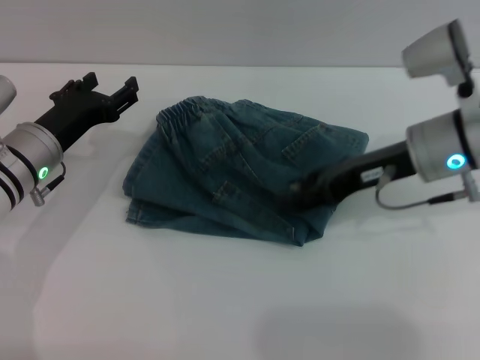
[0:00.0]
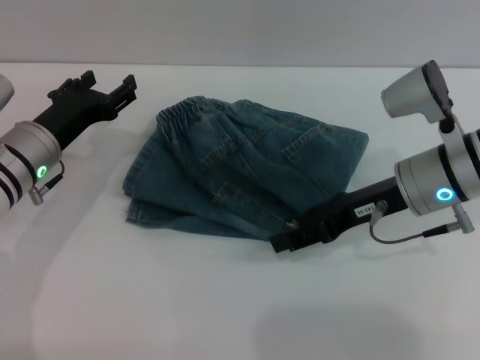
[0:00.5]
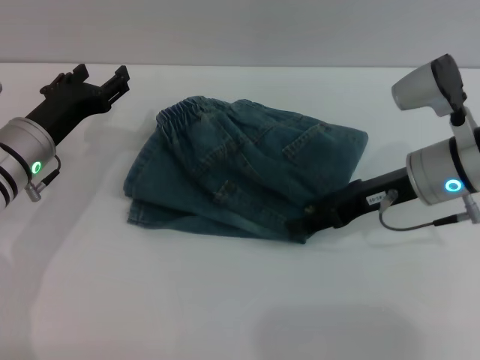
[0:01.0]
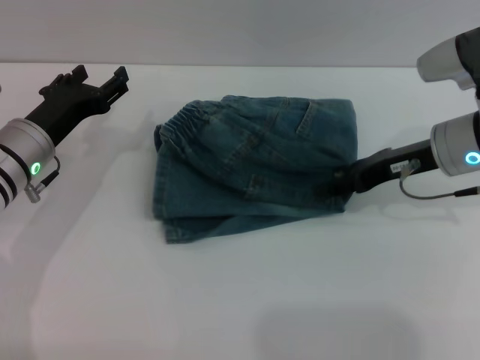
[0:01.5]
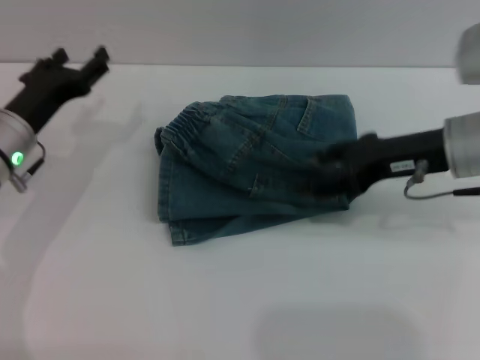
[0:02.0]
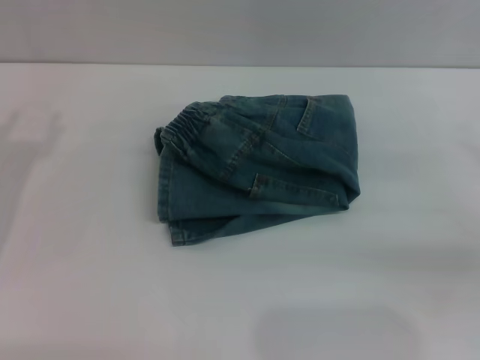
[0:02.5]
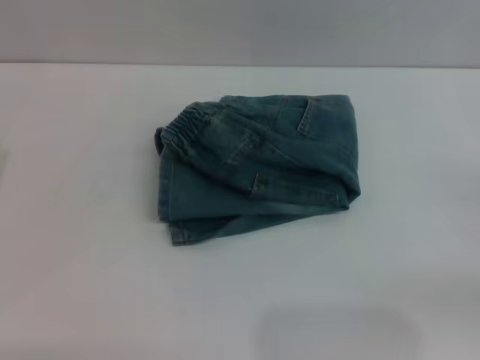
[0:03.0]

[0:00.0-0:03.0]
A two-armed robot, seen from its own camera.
Step, 0:00.0 to 0:02.0: Place the folded trousers onto the center area with the right grippers.
0:00.0 to 0:01.5: The grippers stay close to where they were, moving slightly.
0:01.5 to 0:03.0: The left gripper travels backward and to the left by roughly 15 cm. The right gripper moves to the right and backward, about 25 cm.

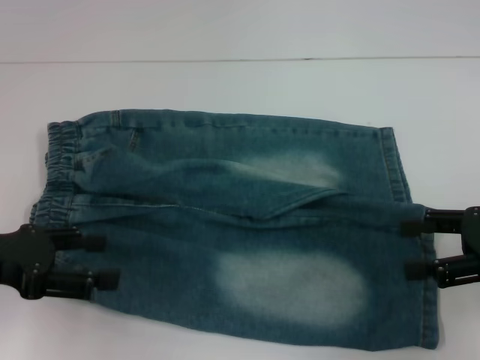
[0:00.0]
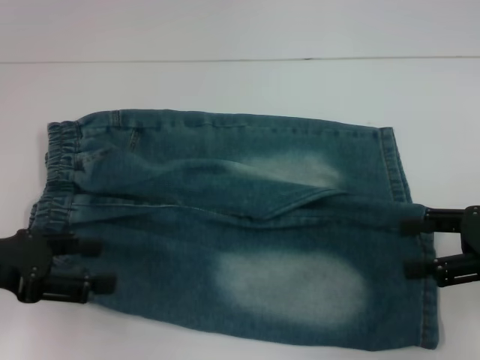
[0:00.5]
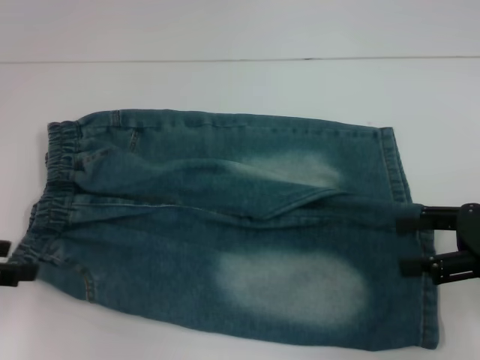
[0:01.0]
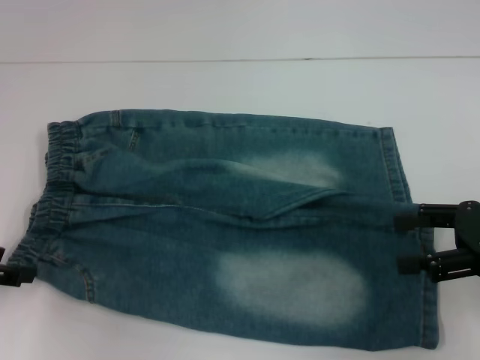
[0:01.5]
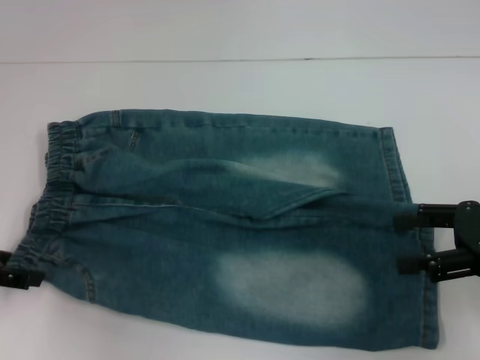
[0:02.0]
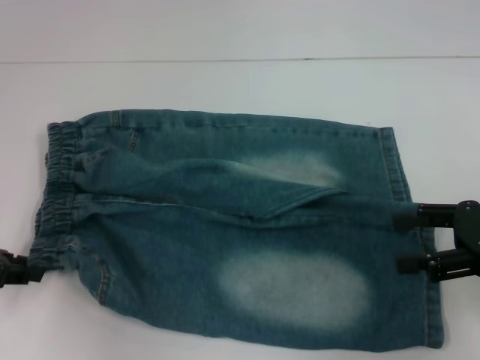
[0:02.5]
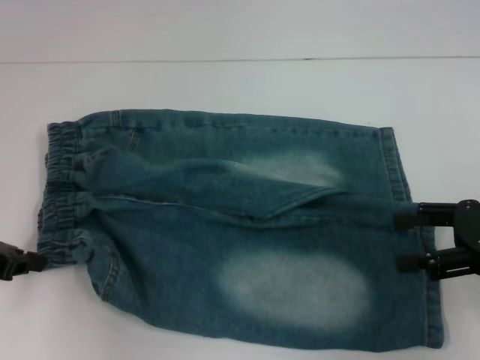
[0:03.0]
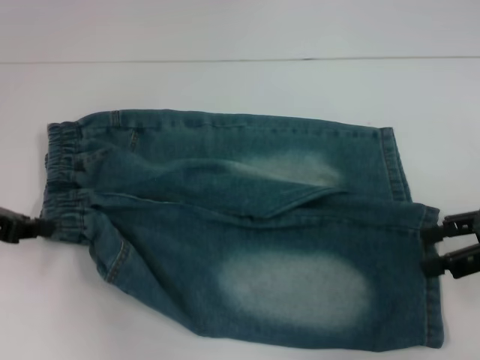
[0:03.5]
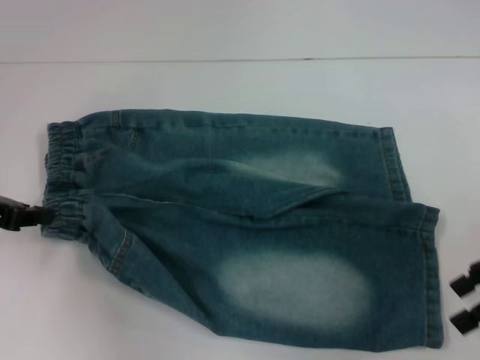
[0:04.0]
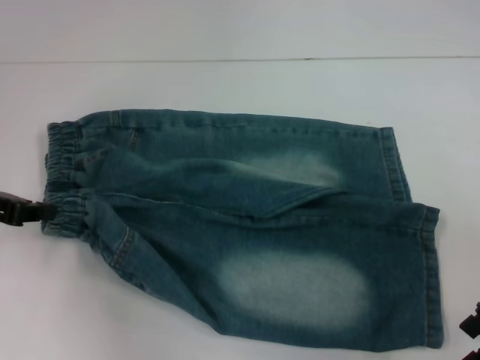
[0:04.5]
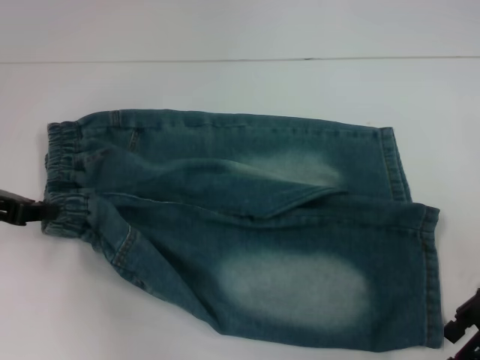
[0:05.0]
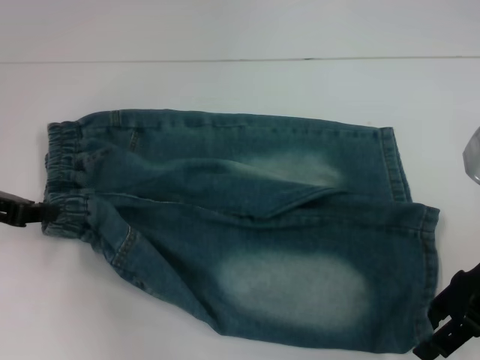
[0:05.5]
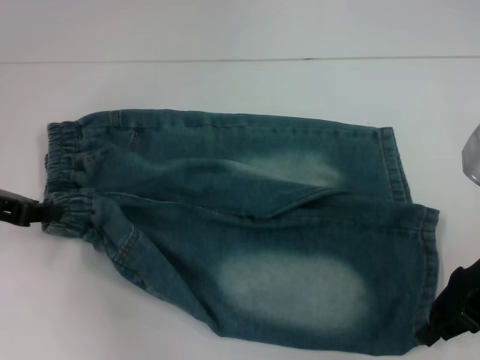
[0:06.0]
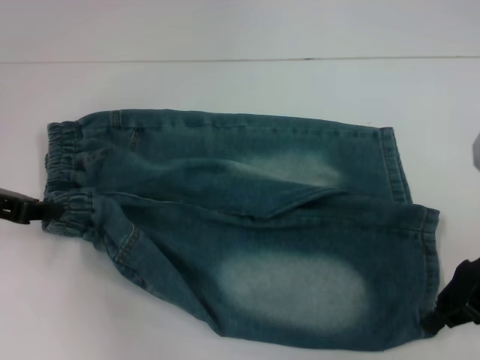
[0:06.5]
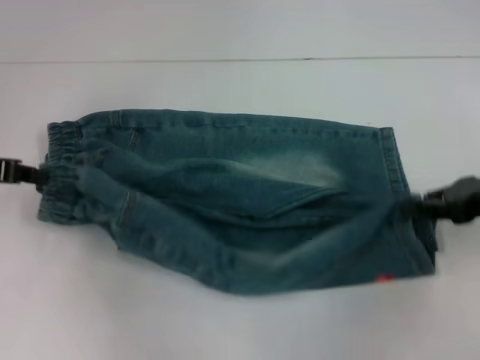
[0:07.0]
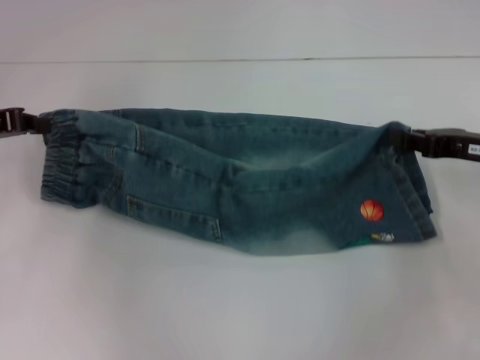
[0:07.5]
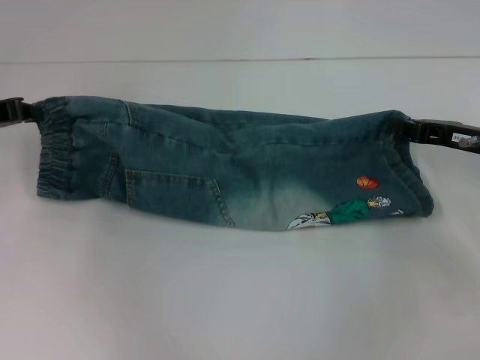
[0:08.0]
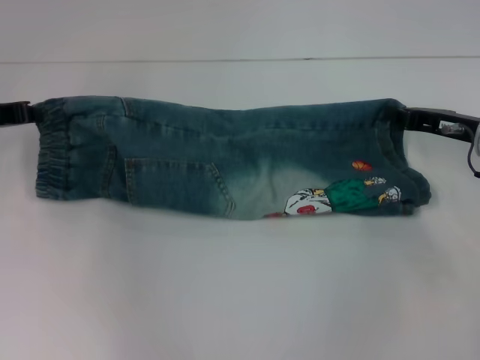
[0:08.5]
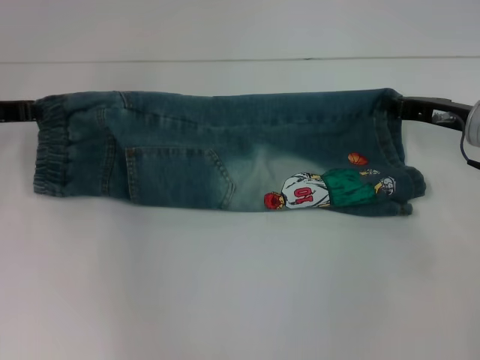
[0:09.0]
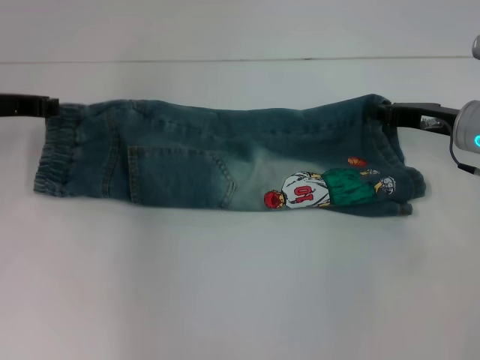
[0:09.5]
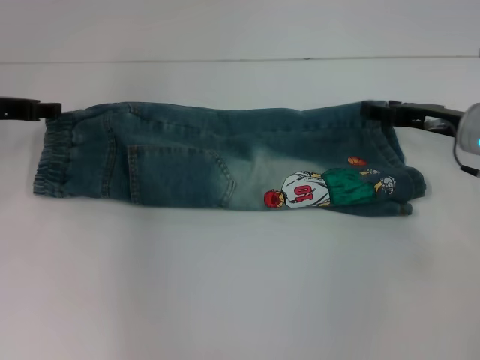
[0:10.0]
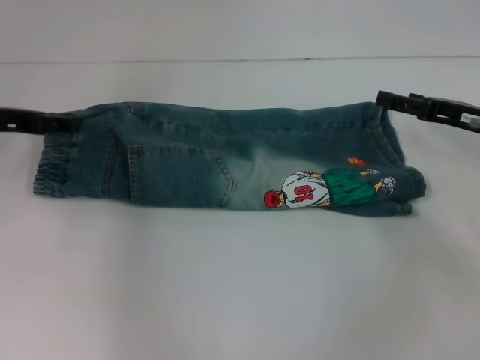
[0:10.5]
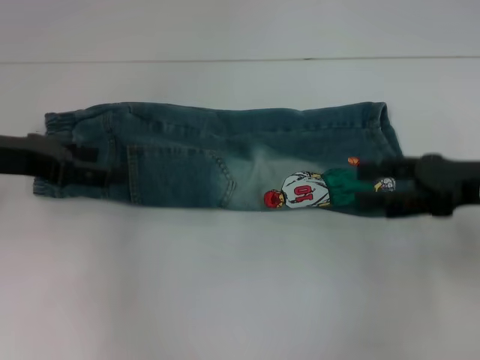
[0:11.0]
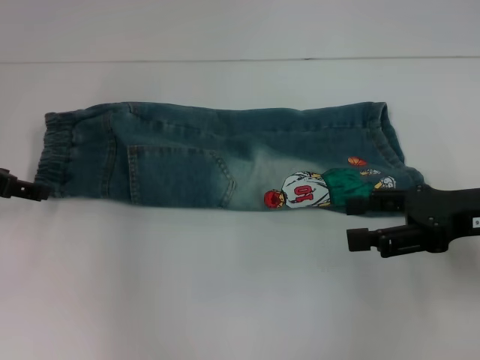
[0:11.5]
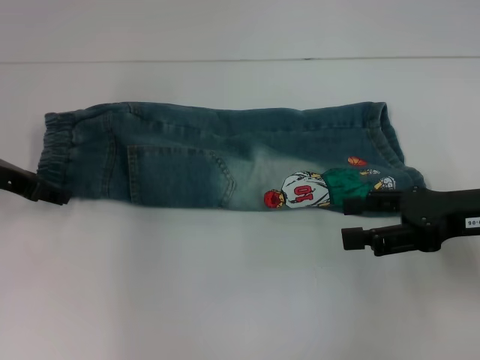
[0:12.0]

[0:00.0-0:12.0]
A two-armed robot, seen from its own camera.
Step, 0:00.0 to 0:02.0: Hold the lower left waistband with your left hand.
Step, 0:02.5 to 0:05.5: Grab the lower right pant leg with your right hand.
Step, 0:06.5 to 0:10.0: Fold upward with your right hand.
0:00.0 to 0:02.0: The left gripper ends up approximately 5 cm from where it was.
0:02.0 to 0:04.0: The left gripper closes.
0:04.0 to 0:06.0: The right gripper travels to the left by approximately 5 cm, and closes up.
0:06.0 to 0:08.0: Both grippers move forward, approximately 5 cm. The right gripper closes.
0:08.0 to 0:10.0: The right gripper opens its fingers.
0:10.0 to 0:12.0: The right gripper heads backward, covering some 10 cm, and opens, while the left gripper opens.

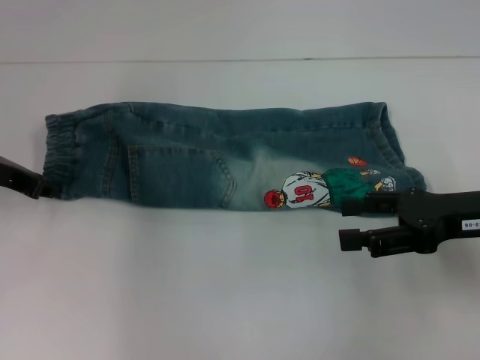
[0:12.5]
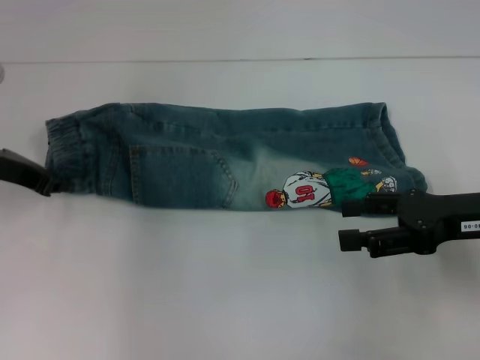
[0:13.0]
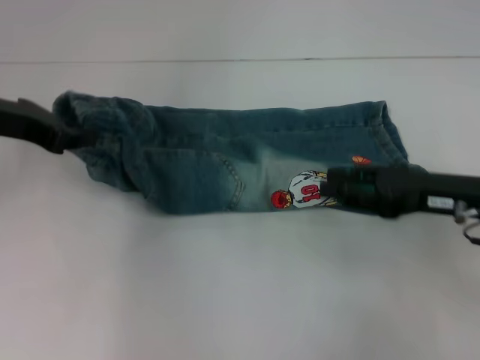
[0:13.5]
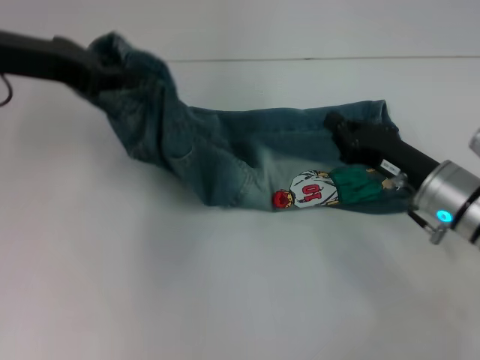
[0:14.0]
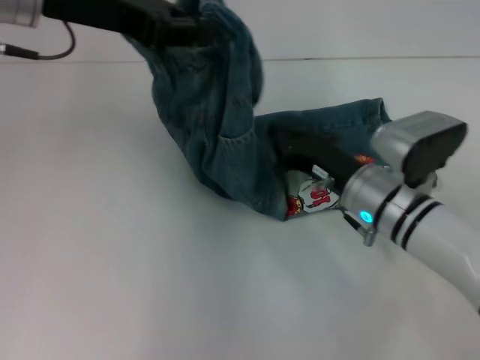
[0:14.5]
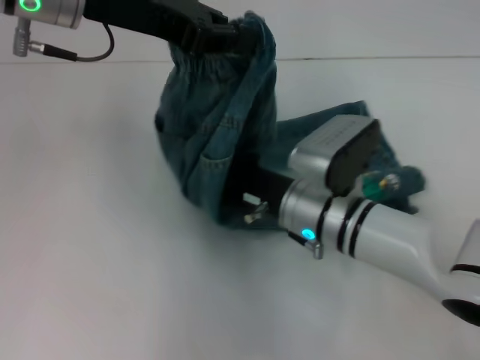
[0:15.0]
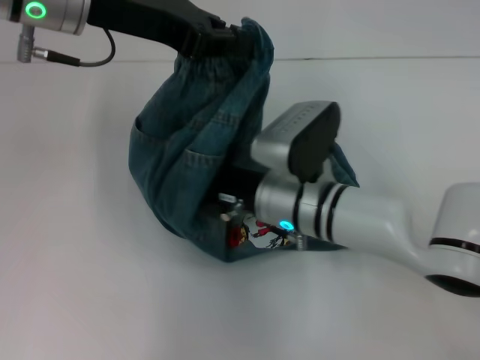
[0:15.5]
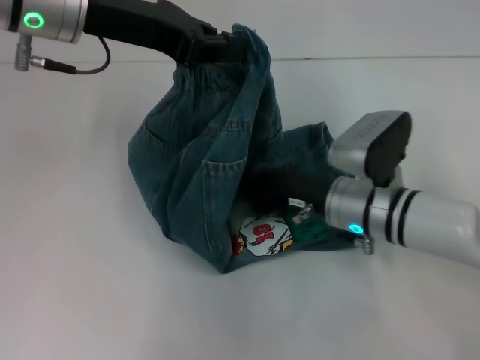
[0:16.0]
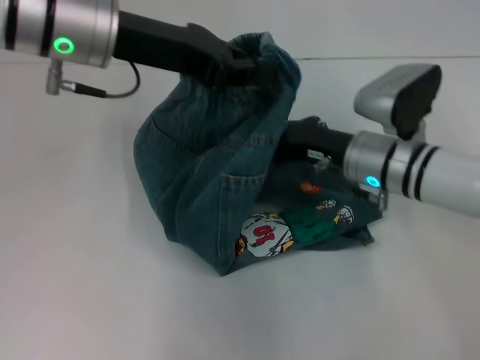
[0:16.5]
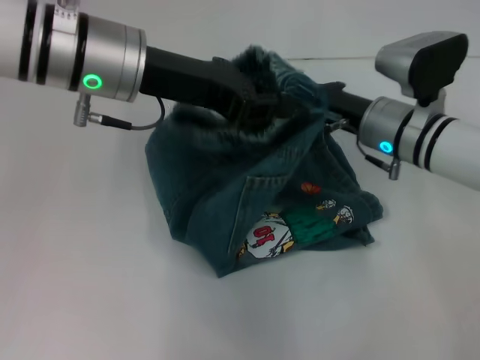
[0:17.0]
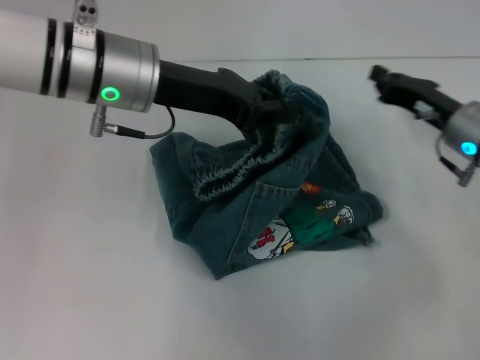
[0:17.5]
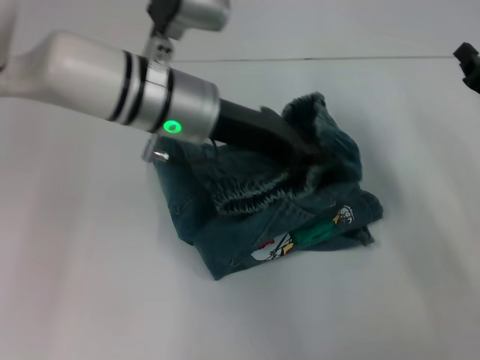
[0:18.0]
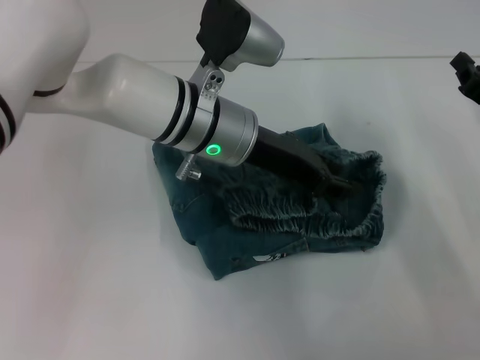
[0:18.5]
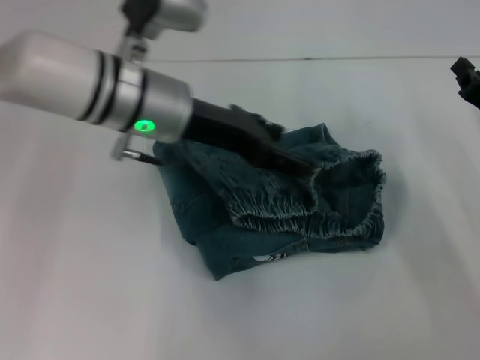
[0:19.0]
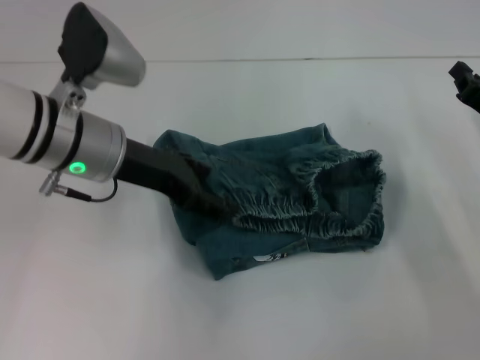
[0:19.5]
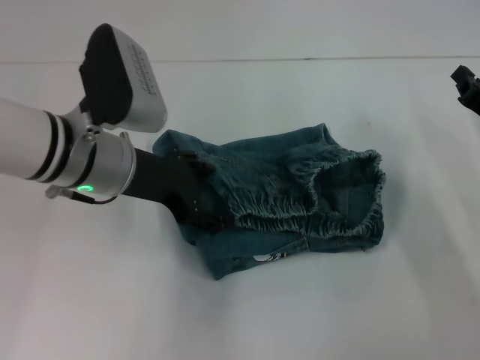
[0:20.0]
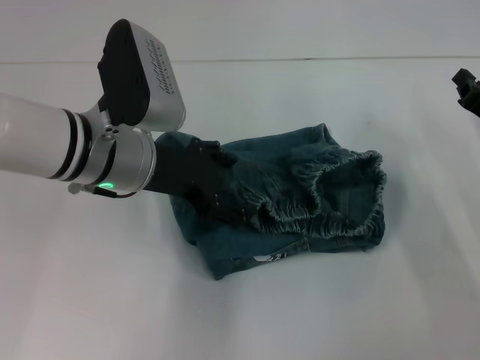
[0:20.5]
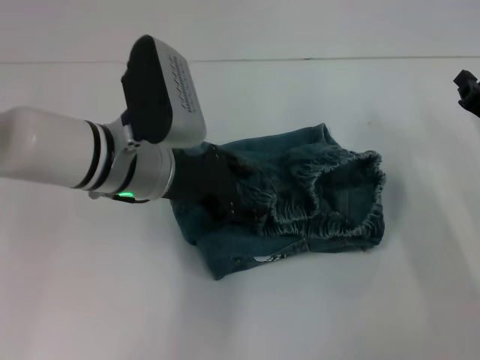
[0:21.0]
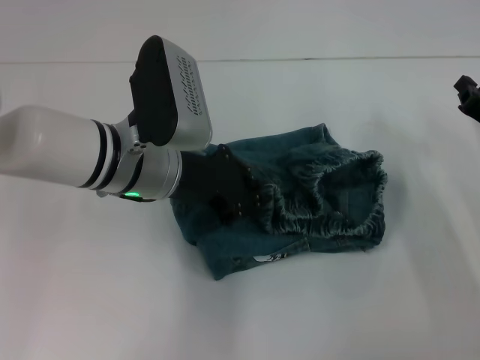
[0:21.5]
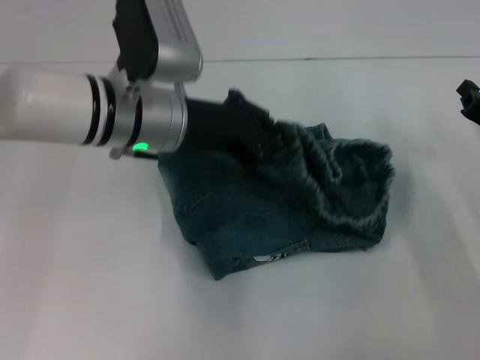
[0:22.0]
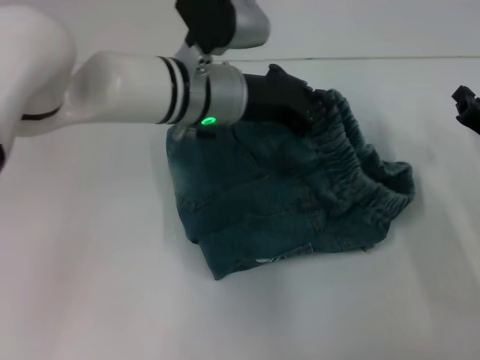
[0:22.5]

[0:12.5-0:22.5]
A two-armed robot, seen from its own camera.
Step, 0:13.0 to 0:15.5: Press the middle of the pants with your right hand.
Step, 0:16.0 to 0:19.0: Fold to the right with your left hand.
0:12.5 to 0:14.5: The left gripper heads upward and to the right, covering roughly 20 cm, and closes its fingers; the right gripper is displaced to the left and downward by some 15 cm, and closes its fingers.
0:14.5 to 0:16.5: The right gripper travels to the left and back again, some 10 cm each way, while the left gripper ends up about 5 cm from where it was.
0:16.5 to 0:18.5: The right gripper shifts about 15 cm to the right; the left gripper shifts some 15 cm to the right and downward.
0:18.5 to 0:20.5: The left gripper shifts approximately 10 cm to the left, and opens.
0:20.5 to 0:22.5: The left gripper goes approximately 10 cm to the right and forward, and closes up.
